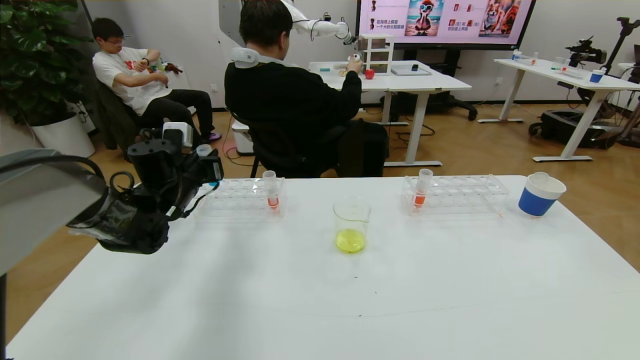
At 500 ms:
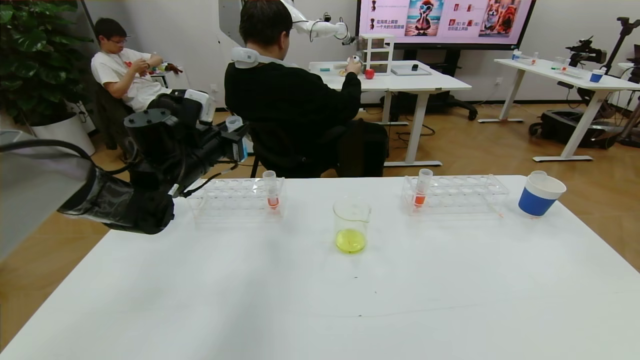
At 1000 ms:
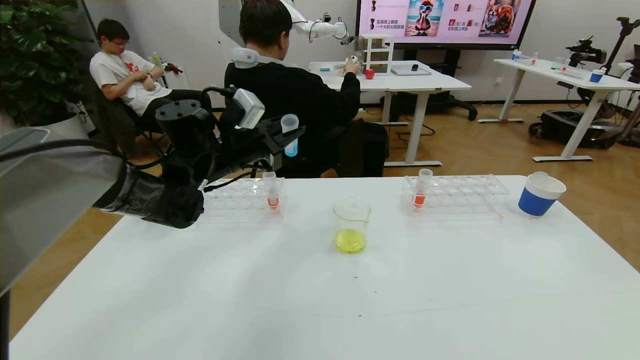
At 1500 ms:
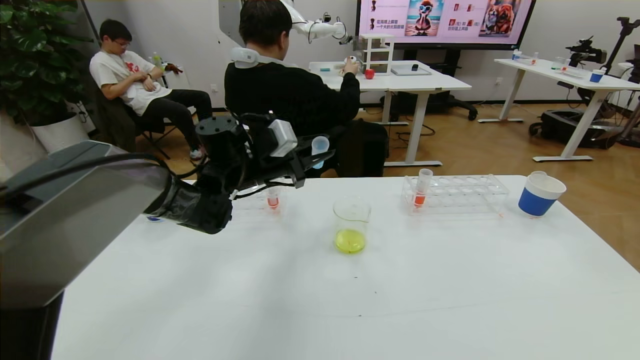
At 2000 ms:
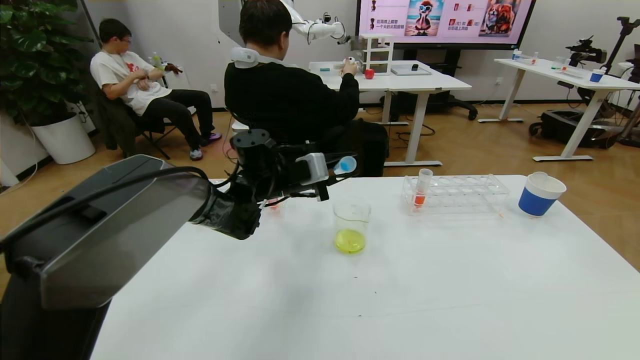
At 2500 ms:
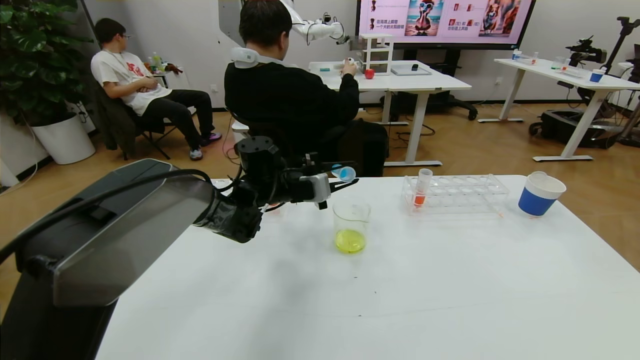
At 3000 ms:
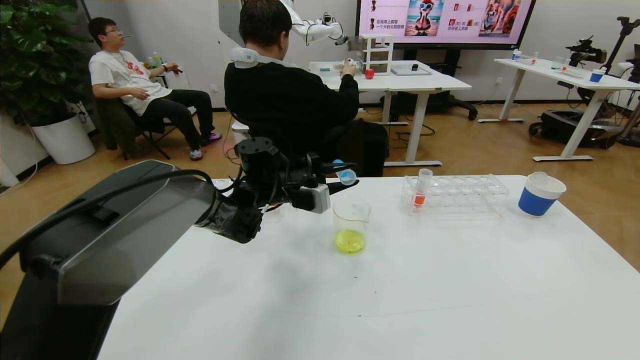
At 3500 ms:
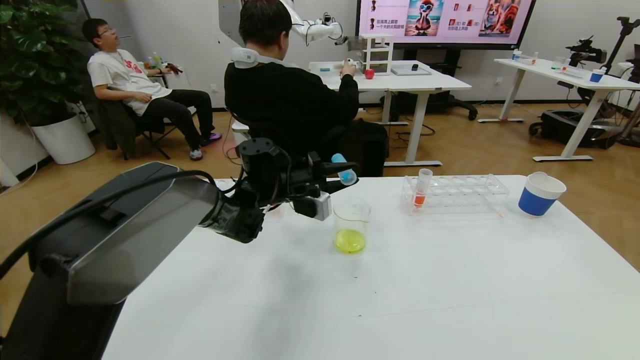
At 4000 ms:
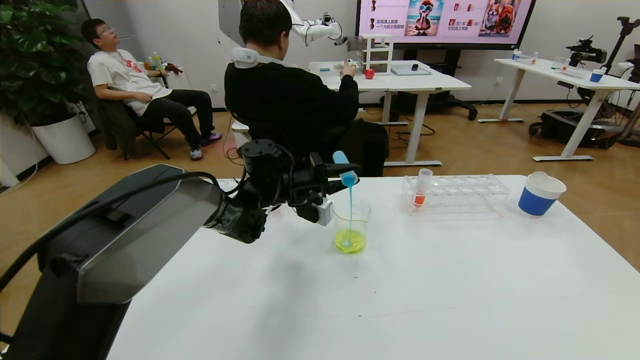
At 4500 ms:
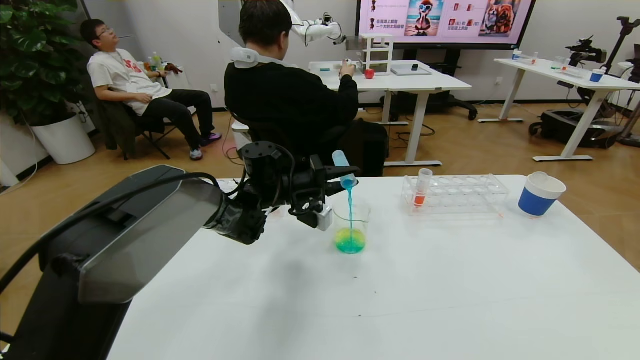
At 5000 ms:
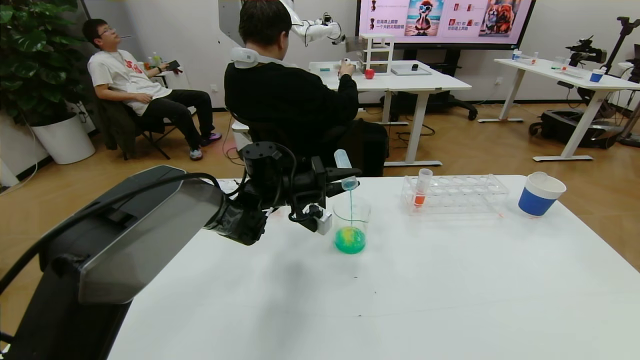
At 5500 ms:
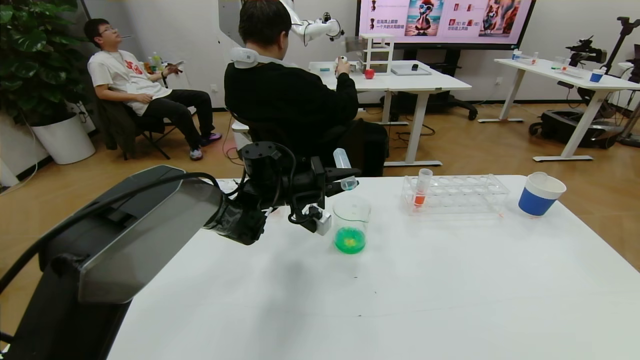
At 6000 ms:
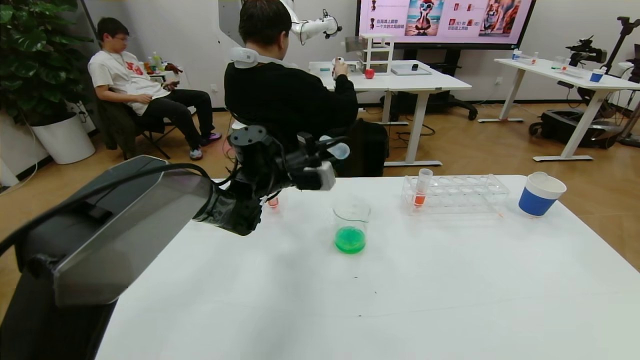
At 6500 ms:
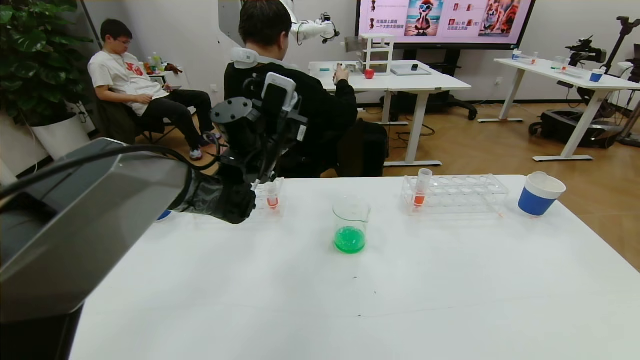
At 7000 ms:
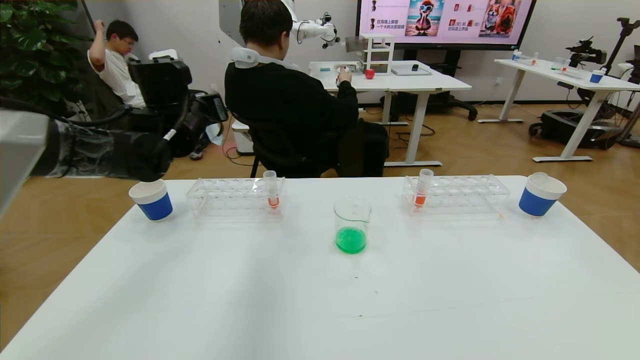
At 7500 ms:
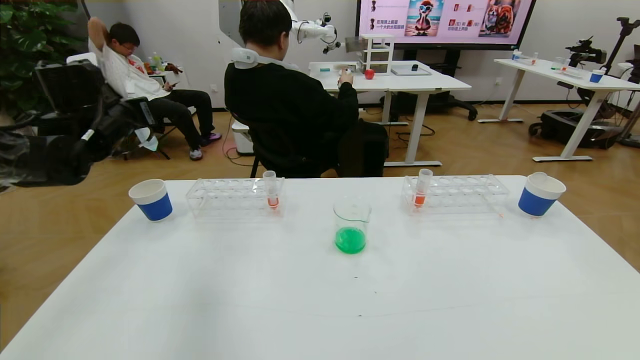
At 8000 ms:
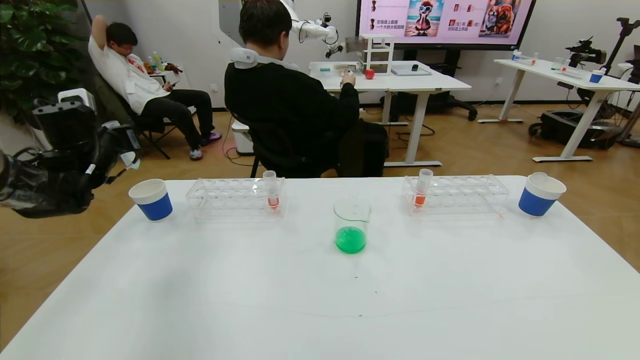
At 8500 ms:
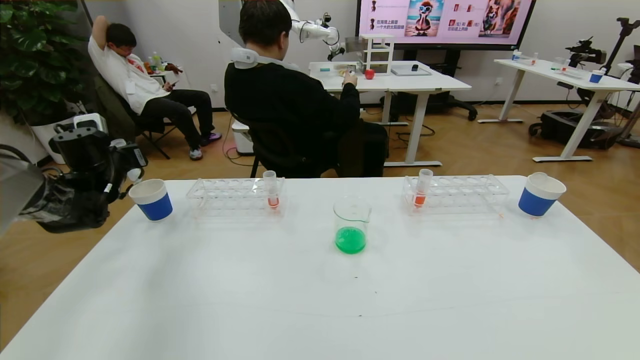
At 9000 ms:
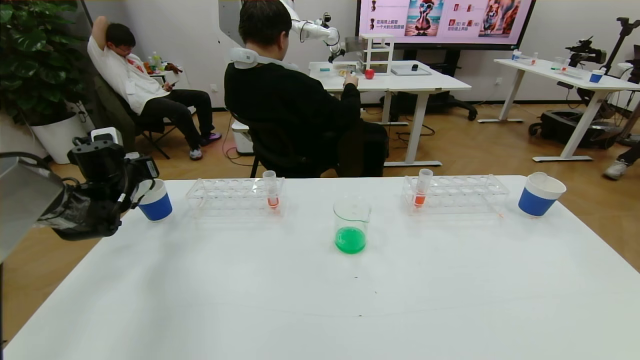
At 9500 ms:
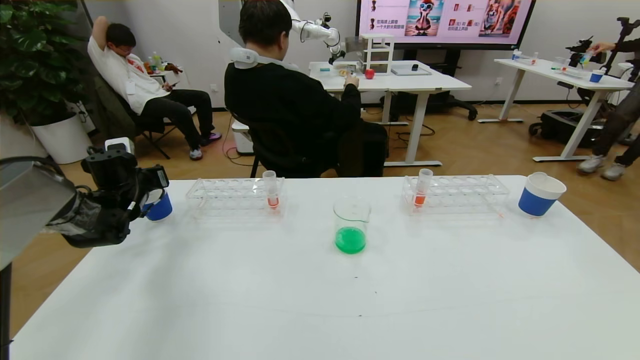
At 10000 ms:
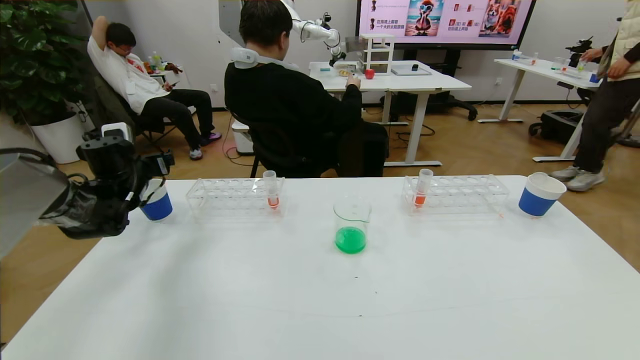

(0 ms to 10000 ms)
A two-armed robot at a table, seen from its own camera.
Task of the whole recording: pick up the test tube with yellow pigment and the test tube with blue pigment by grippers and pour them into the beaker.
Step, 0 ms - 6000 ms: Pour the blue reagent into the graduated cylinder with the left gripper.
0 ms - 2000 ms: The left gripper moves to the right, some 20 cm.
6000 ms - 8000 ms: The left gripper is displaced to the left by about 30 cm.
8000 ms - 10000 ms: The left gripper heads downward, covering roughly 5 cm, and opens.

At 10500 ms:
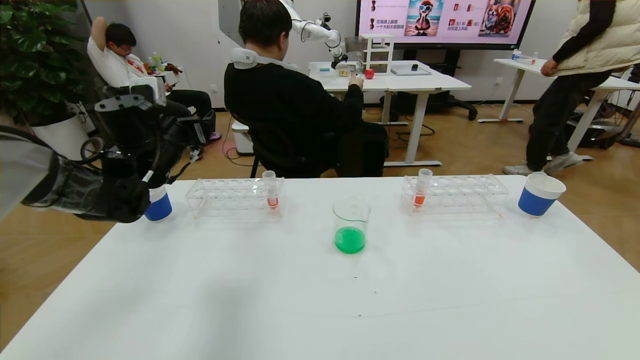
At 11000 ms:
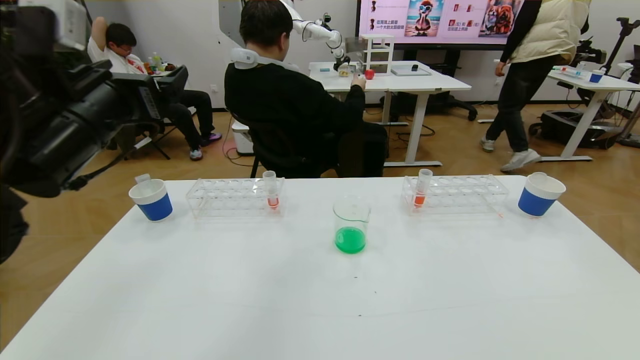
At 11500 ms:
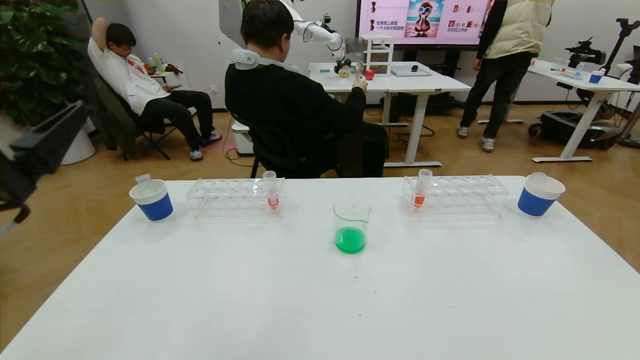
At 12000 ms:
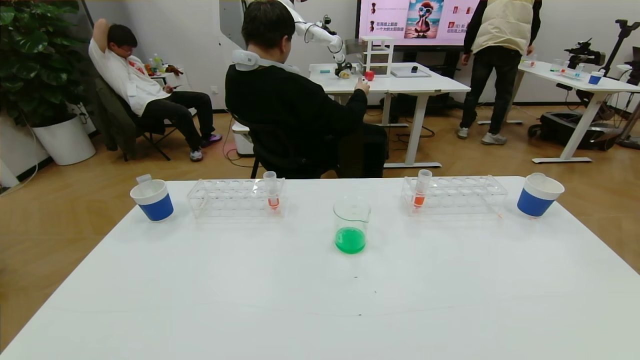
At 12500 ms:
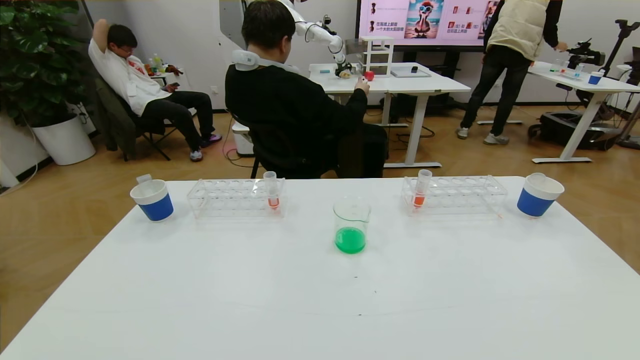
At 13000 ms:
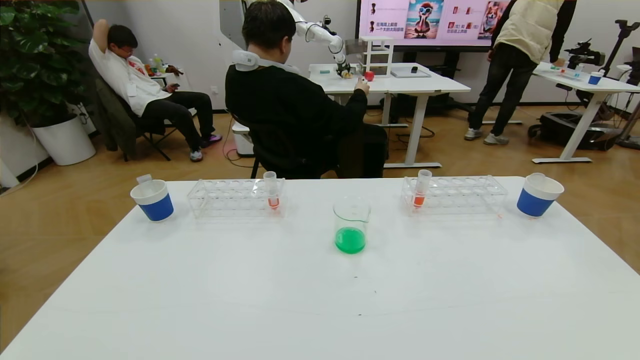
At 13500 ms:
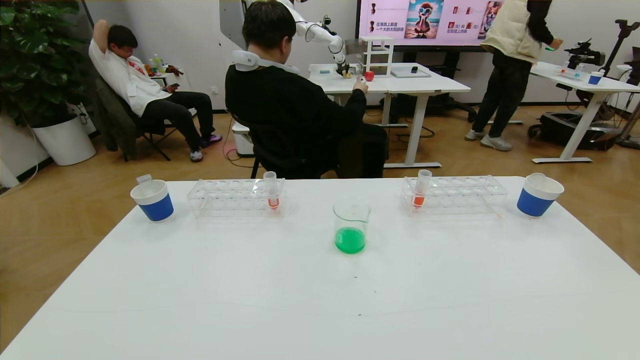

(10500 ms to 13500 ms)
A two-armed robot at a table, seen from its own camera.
Task of the whole recording: pick up the test tube with yellow pigment and the test tube with blue pigment by grippers and pour them into the beaker.
10500 ms - 12000 ms: The left gripper heads backward, covering about 40 cm.

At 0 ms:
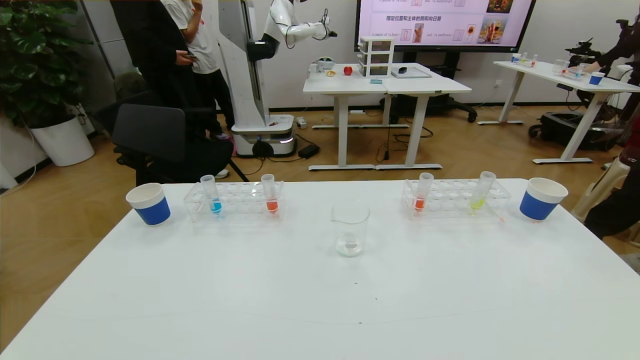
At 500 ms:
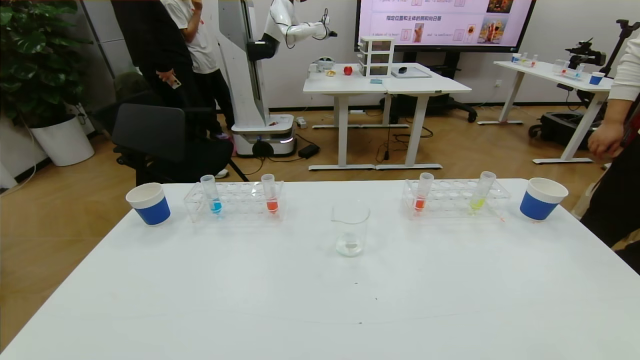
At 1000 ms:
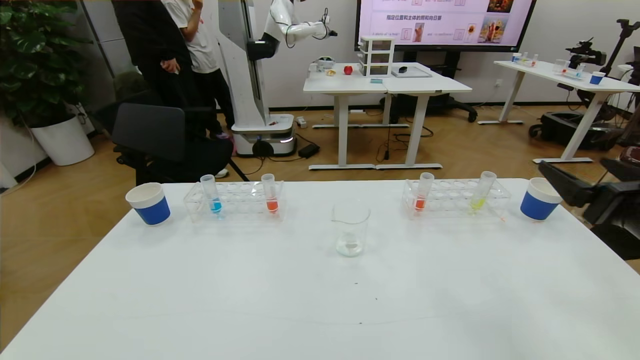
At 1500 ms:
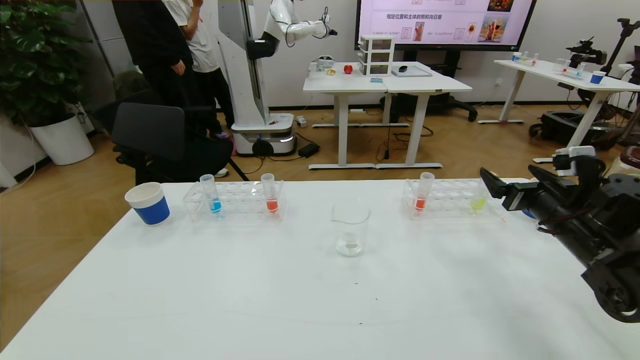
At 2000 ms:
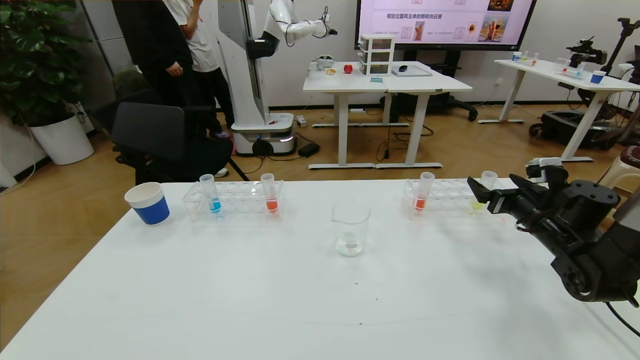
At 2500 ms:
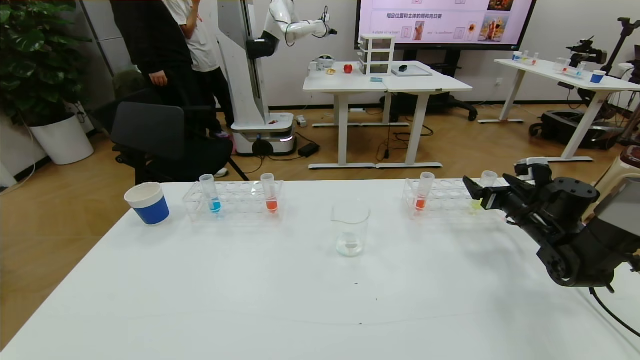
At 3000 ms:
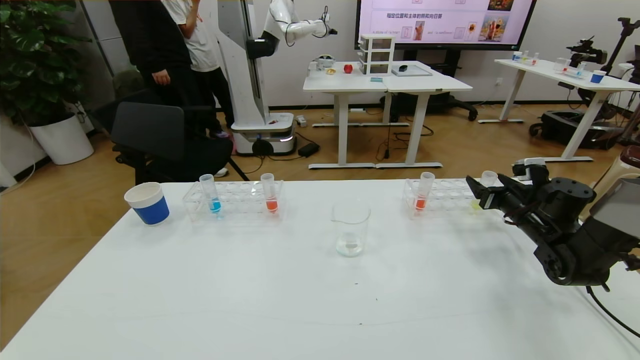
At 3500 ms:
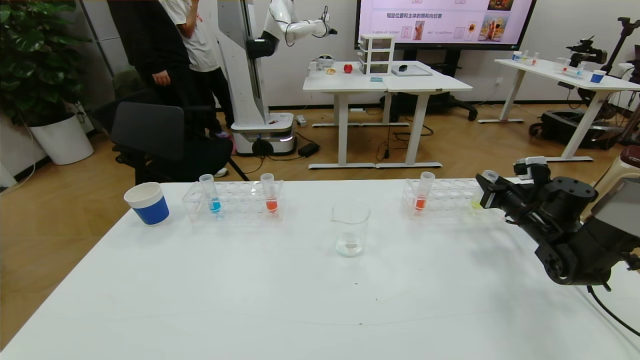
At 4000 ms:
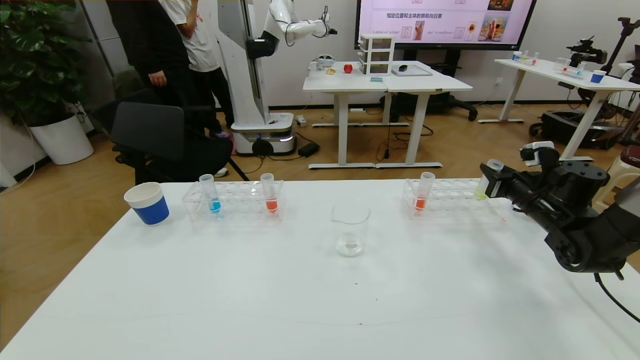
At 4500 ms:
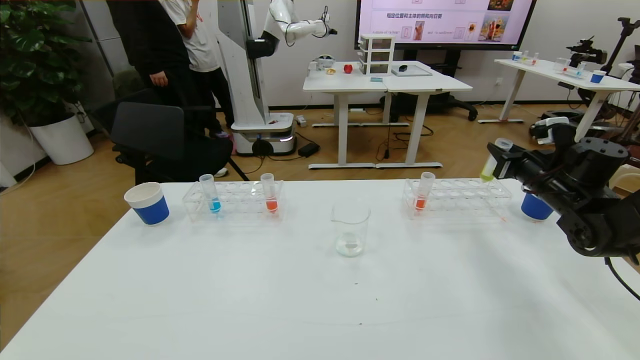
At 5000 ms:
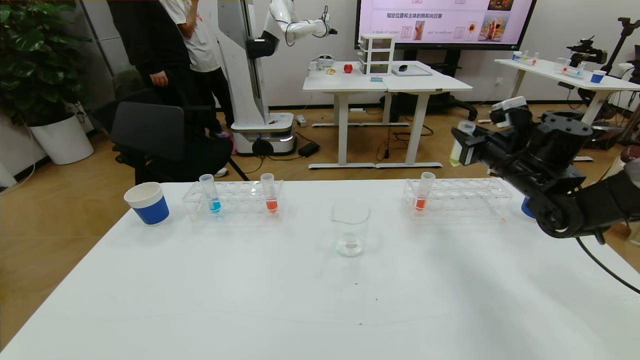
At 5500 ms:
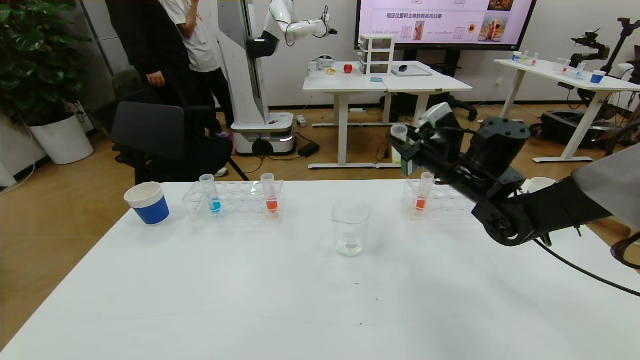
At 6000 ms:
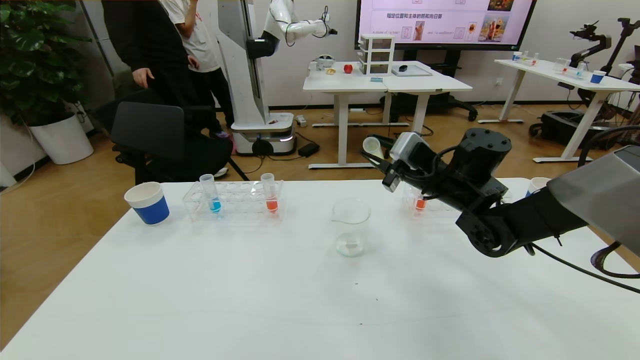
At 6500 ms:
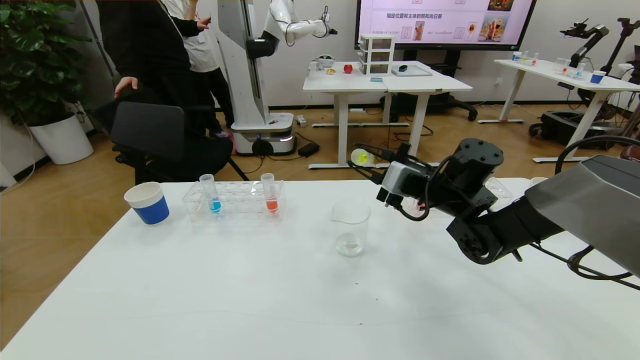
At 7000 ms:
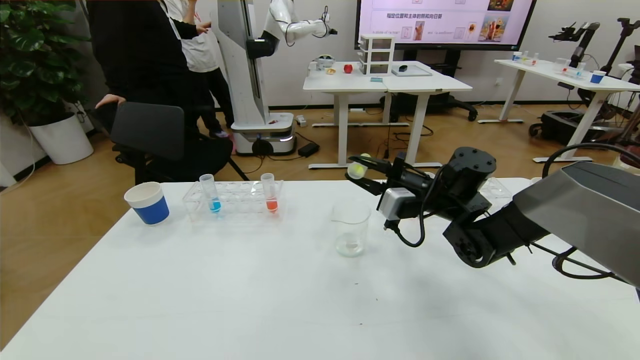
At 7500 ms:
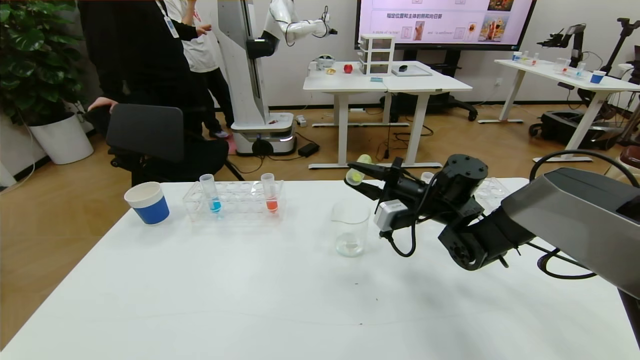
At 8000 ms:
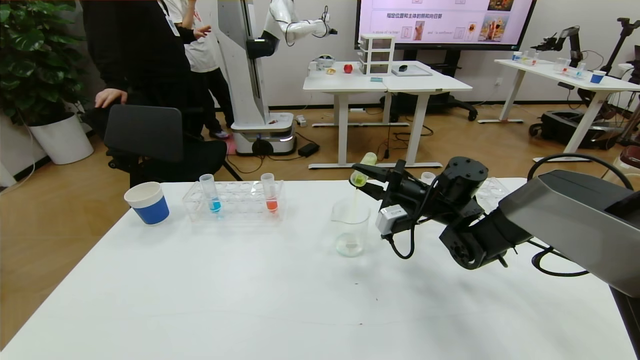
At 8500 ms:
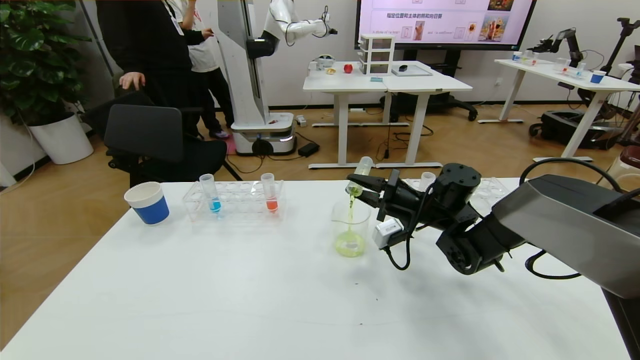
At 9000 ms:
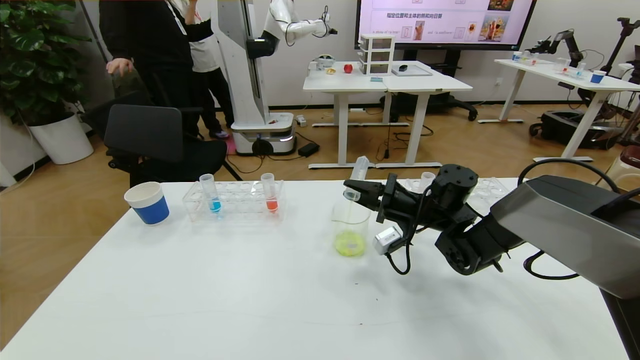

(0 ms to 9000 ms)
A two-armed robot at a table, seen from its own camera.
Task of the whole recording: pick up the test tube with yellow pigment and the test tube with blue pigment by grippers and pour them into the beaker.
0 ms - 2000 ms: The right gripper goes approximately 40 cm forward.
2000 ms - 4500 ms: The right gripper moves upward, roughly 5 cm, and closes its fingers.
4500 ms - 7000 ms: The right gripper heads to the left, covering roughly 20 cm.
